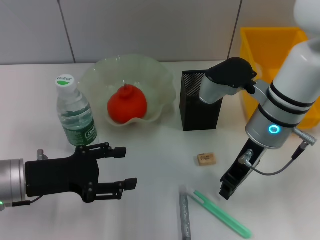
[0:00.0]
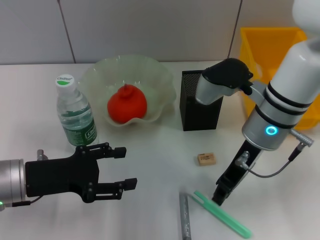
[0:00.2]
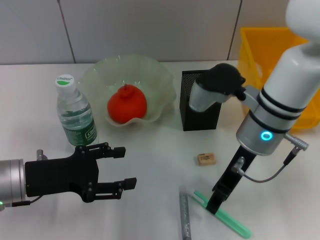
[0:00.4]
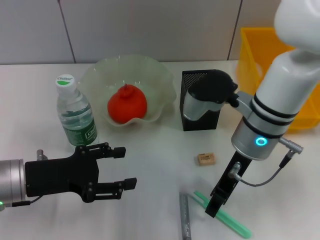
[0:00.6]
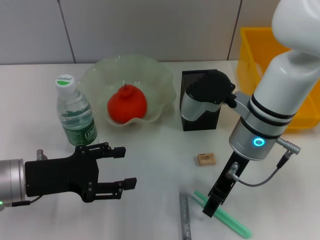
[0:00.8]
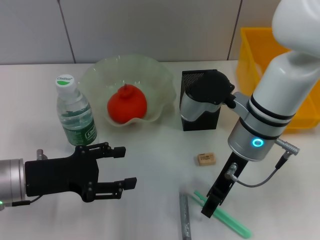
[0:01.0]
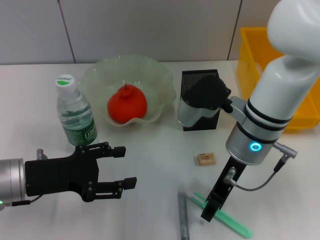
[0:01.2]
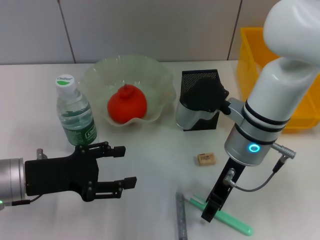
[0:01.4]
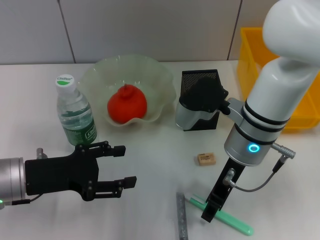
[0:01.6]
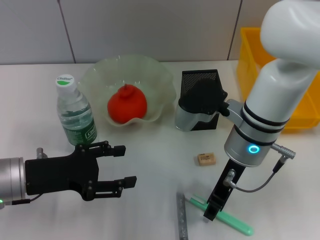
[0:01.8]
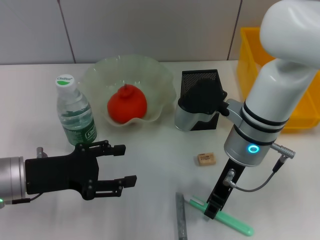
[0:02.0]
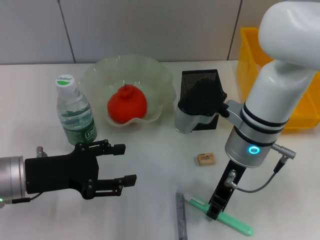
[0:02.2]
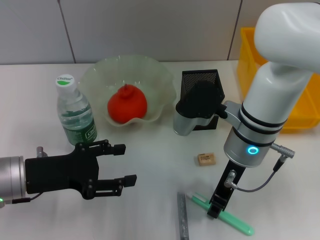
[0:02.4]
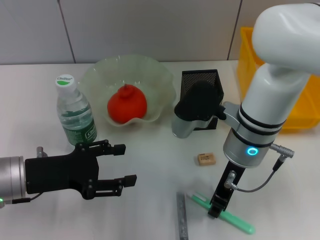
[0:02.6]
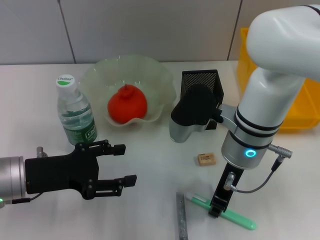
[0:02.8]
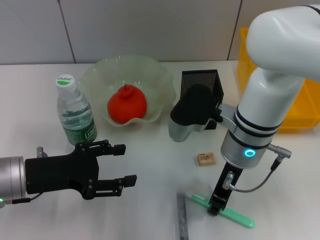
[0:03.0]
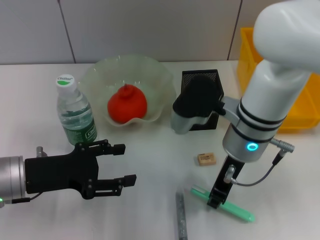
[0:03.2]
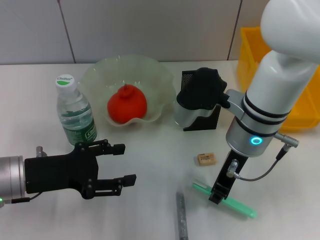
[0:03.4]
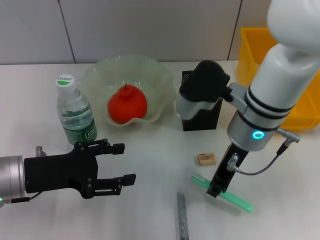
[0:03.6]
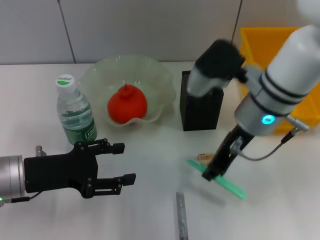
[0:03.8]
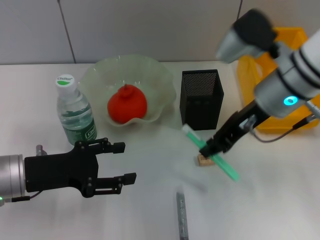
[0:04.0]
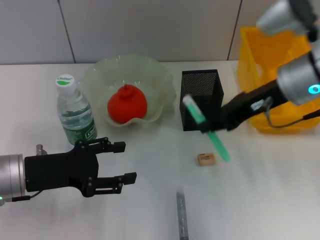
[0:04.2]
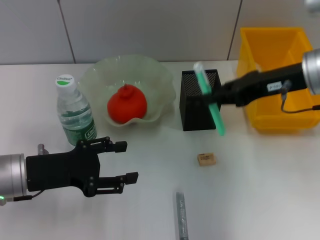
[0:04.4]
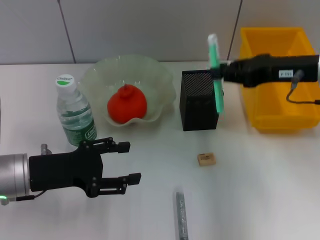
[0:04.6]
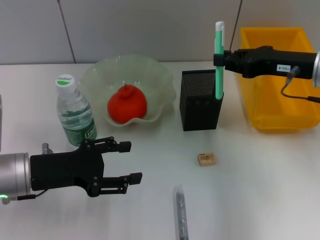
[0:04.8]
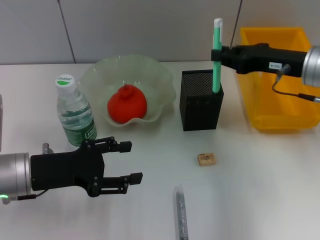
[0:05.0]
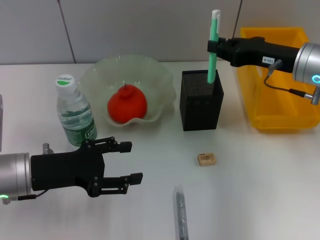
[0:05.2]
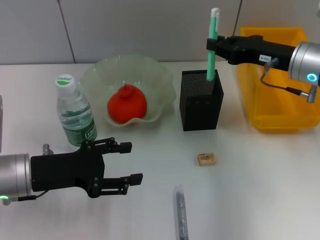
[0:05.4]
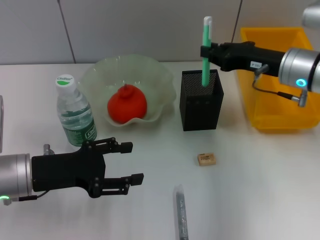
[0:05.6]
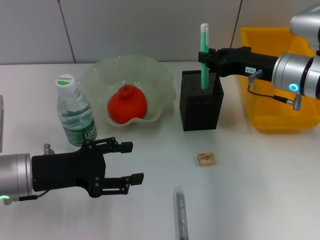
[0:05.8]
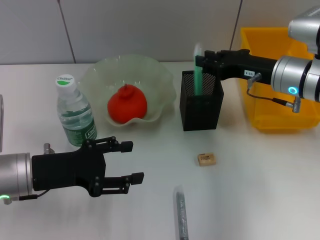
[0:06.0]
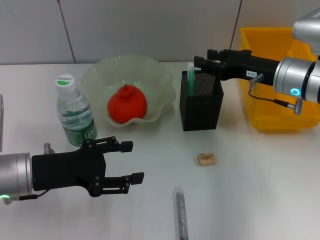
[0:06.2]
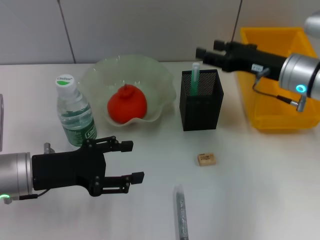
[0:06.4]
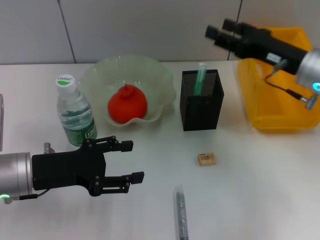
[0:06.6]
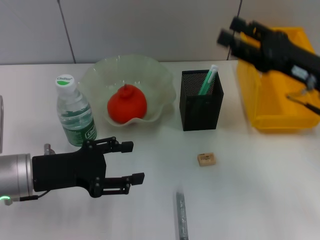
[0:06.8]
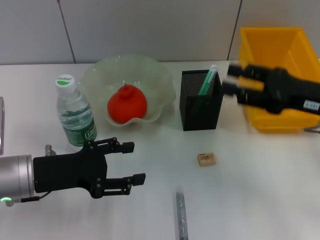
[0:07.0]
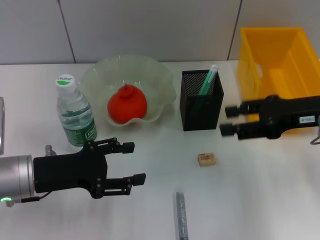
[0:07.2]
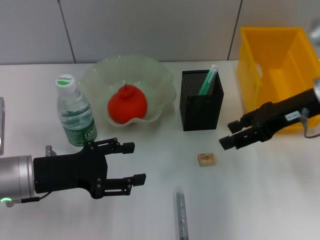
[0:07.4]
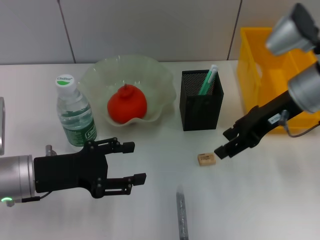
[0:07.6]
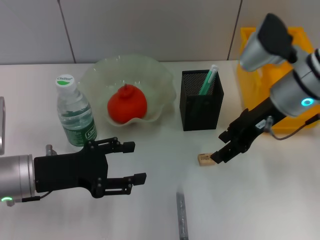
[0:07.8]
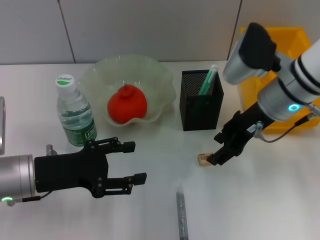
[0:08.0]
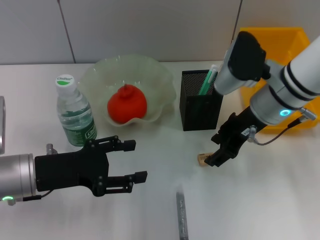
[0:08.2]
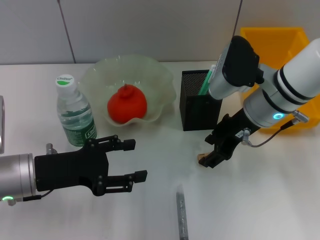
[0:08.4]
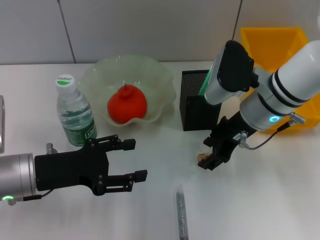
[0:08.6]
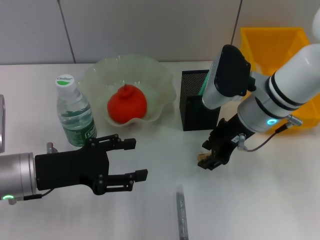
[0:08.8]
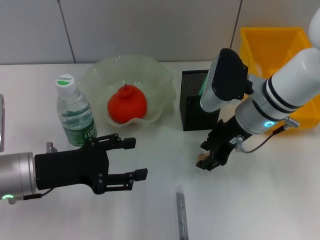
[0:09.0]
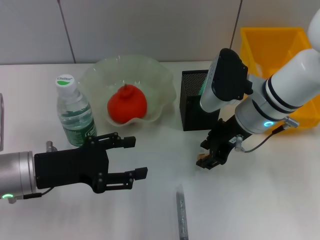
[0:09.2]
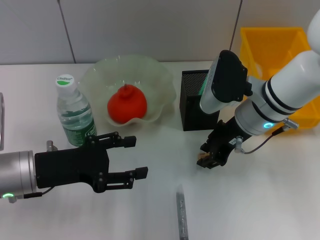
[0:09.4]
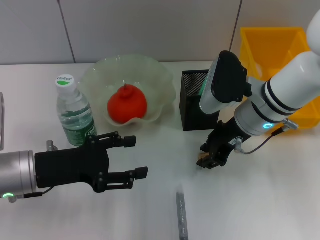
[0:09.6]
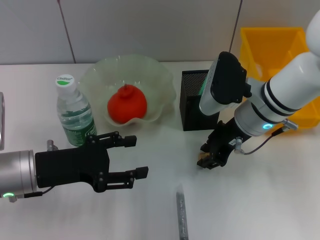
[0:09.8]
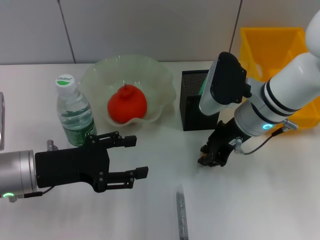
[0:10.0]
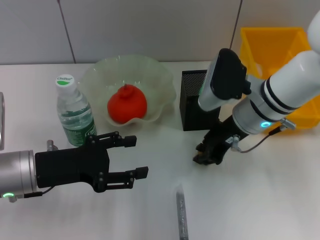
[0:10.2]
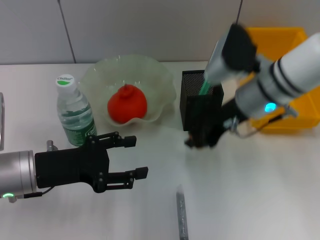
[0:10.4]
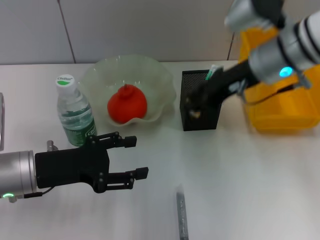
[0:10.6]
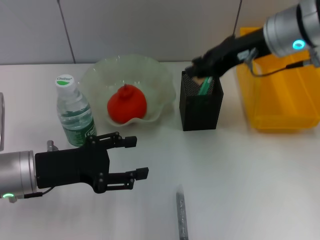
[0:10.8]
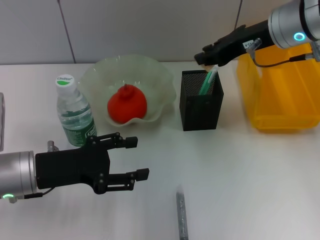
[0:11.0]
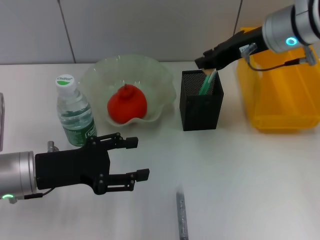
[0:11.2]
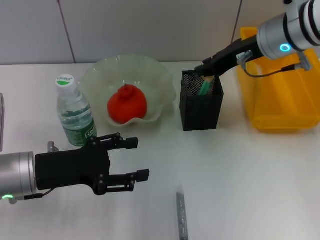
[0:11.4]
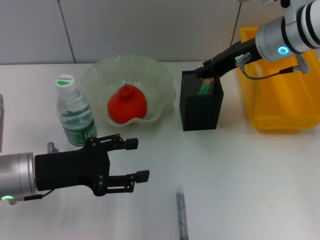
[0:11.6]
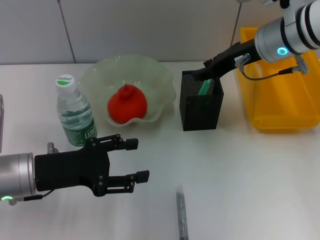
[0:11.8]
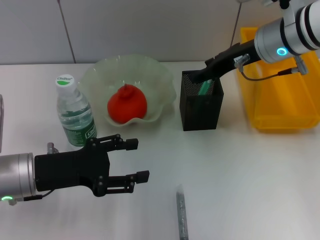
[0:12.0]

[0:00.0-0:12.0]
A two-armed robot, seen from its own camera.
Step, 0:00.0 to 0:02.8: Grab the blue utility knife with the right hand.
Step, 0:03.0 to 0:06.4: Place the blue utility knife into the pen holder with the right hand.
Step, 0:06.6 to 0:09.8: Grab the eraser with the right hand.
0:00.0 to 0:01.6: The right gripper opens.
0:01.6 to 0:03.0: The grippers stay close to where they were, moving slightly.
0:03.0 to 0:04.4: The right gripper is displaced to the right and upward by some 15 cm.
0:04.4 to 0:06.0: The right gripper goes approximately 10 cm downward.
0:06.0 to 0:07.6: The right gripper heads upward, covering some 5 cm, moves approximately 10 cm backward and comes back, and opens up.
0:07.6 to 0:09.0: The right gripper heads to the left and downward, covering some 10 cm.
0:09.0 to 0:10.4: The right gripper closes its fingers.
0:10.4 to 0:12.0: The right gripper changes place by approximately 5 cm.

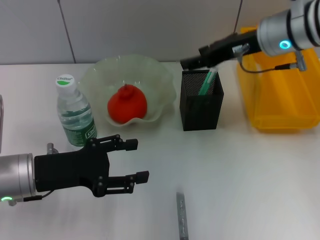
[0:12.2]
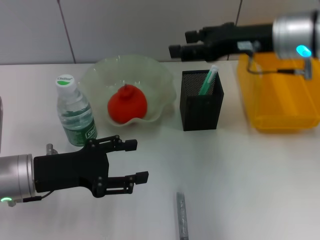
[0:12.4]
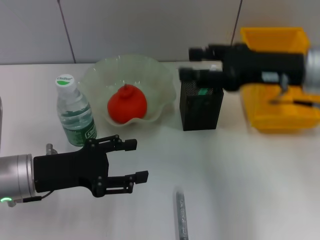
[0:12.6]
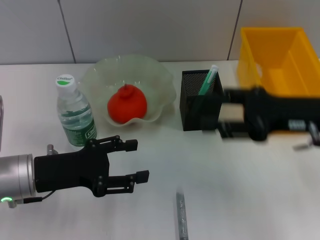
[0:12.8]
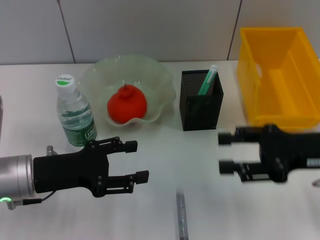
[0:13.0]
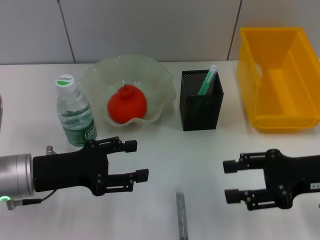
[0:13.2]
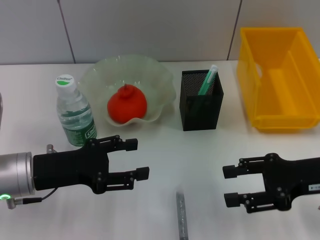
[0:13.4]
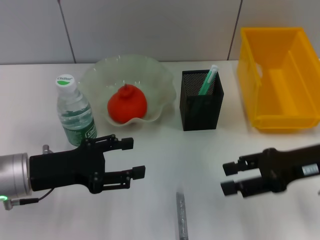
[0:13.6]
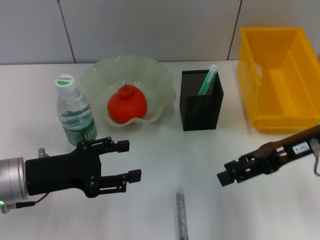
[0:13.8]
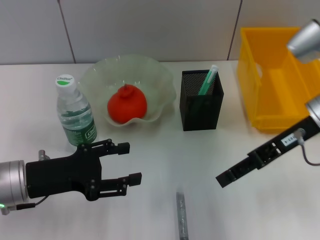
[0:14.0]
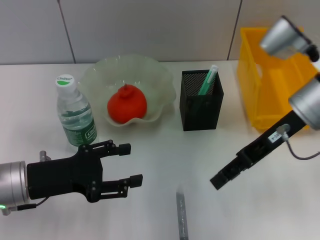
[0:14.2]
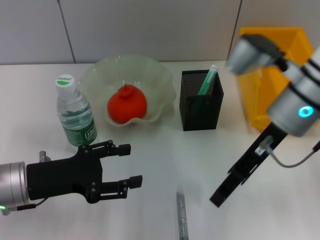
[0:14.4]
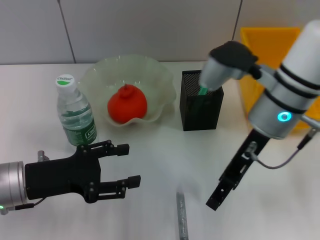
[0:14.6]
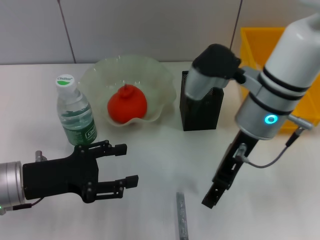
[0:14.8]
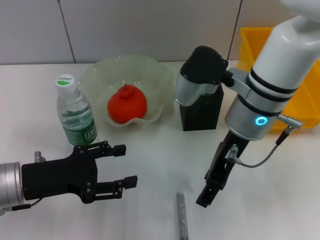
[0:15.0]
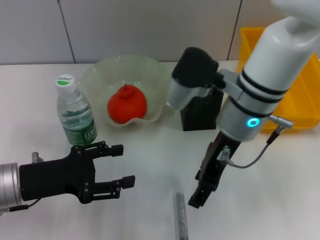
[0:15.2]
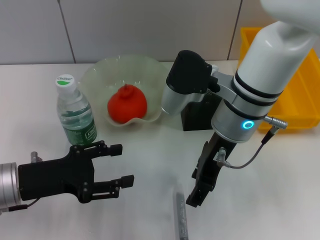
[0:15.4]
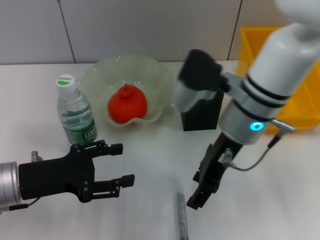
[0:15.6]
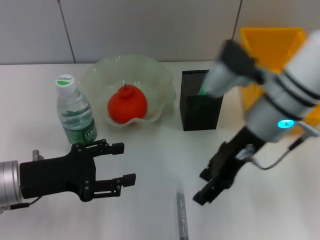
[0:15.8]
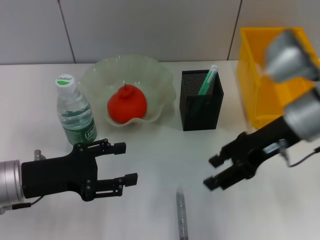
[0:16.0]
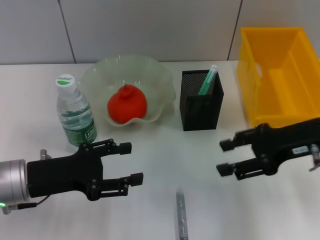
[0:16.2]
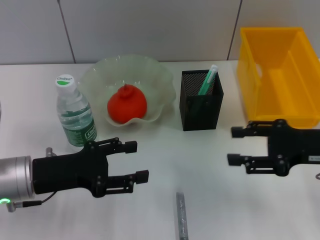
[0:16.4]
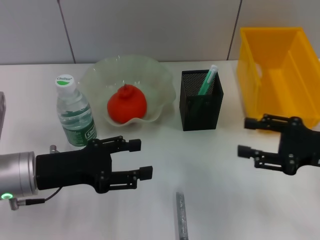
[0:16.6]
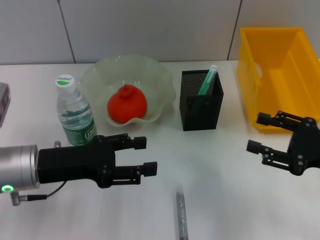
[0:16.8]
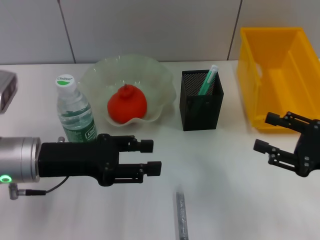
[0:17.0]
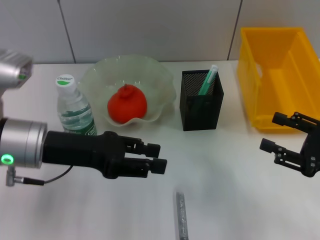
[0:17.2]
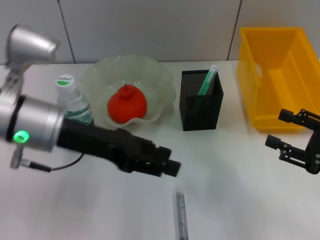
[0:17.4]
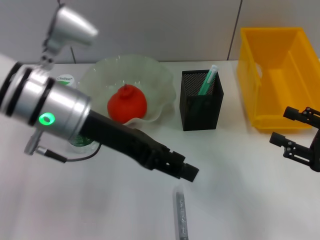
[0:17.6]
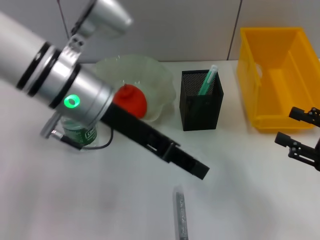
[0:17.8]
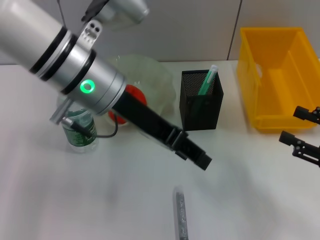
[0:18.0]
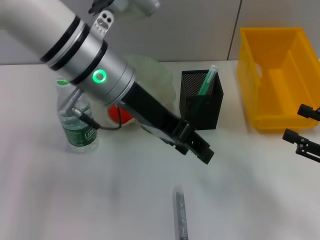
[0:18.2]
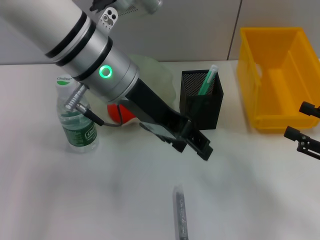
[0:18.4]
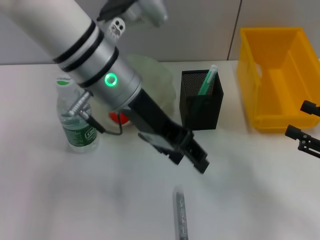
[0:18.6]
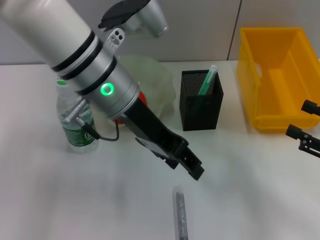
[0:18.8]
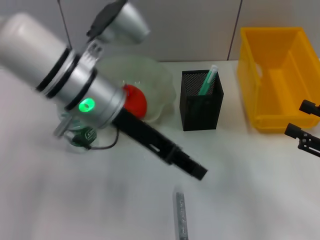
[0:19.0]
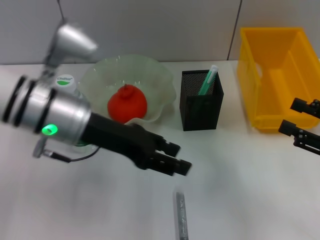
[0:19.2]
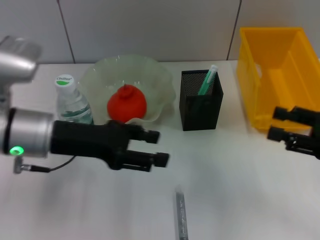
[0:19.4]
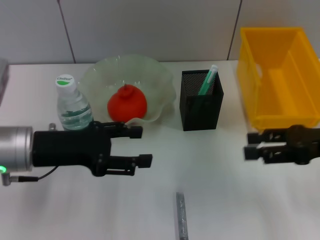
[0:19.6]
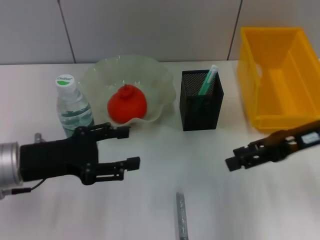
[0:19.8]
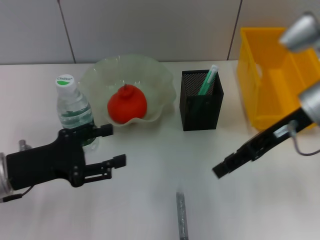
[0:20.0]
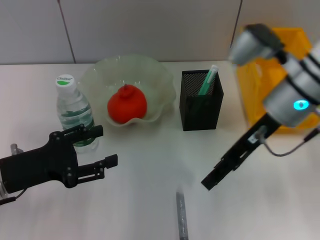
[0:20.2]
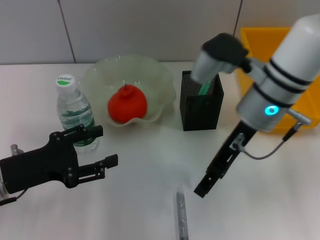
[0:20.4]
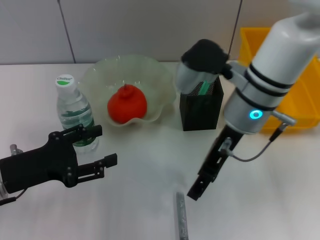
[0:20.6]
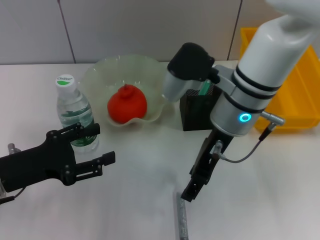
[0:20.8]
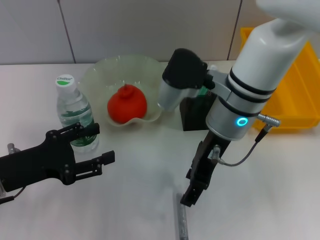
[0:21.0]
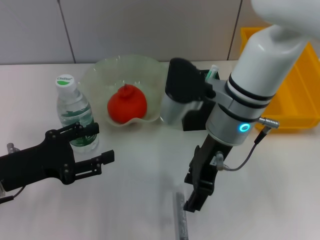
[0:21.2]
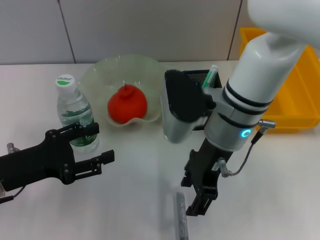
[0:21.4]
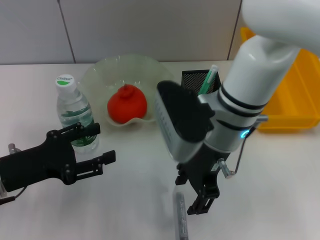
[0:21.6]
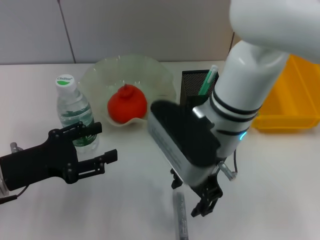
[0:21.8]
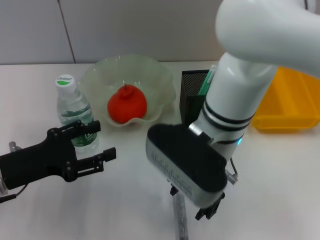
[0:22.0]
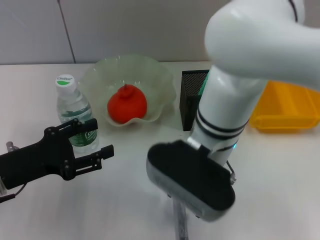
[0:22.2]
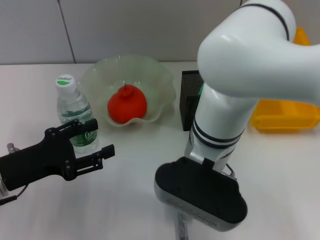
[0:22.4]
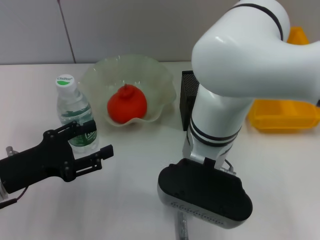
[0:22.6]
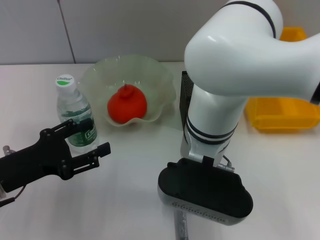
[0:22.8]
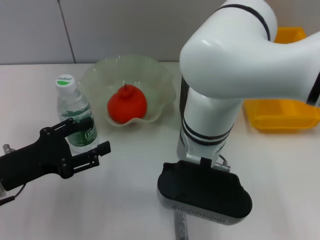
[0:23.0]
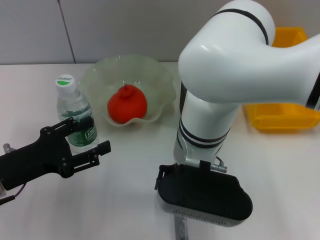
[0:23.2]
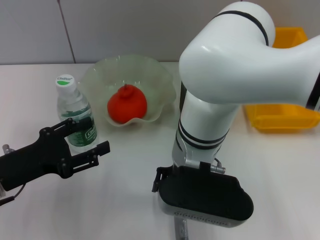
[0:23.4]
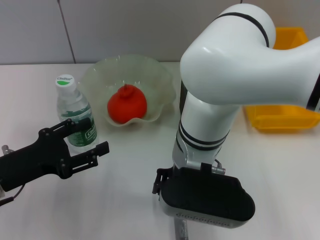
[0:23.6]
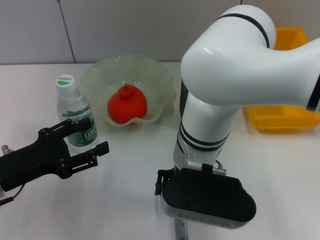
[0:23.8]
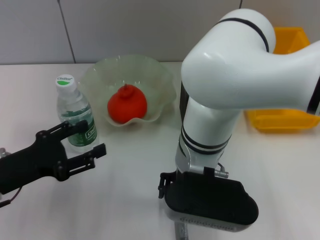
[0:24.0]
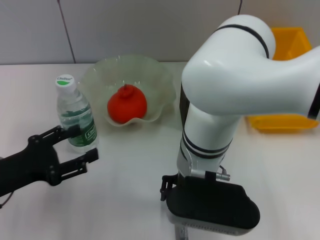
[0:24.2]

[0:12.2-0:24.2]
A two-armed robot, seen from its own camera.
0:12.2 to 0:13.8: The right gripper goes roughly 15 cm backward, to the right and downward.
0:13.8 to 0:15.2: The right gripper goes roughly 15 cm to the left.
0:15.2 to 0:16.6: The right gripper moves to the right, some 20 cm.
0:16.6 to 0:18.2: The right gripper moves to the right, approximately 5 cm, while the left gripper is displaced upward, to the right and forward by approximately 20 cm.
0:18.2 to 0:19.8: The right gripper travels to the left, forward and upward by about 15 cm; the left gripper shifts about 20 cm to the left, downward and backward, and opens.
0:19.8 to 0:21.2: The right gripper shifts some 20 cm to the left.
0:21.2 to 0:22.6: The right gripper changes place by approximately 5 cm.
